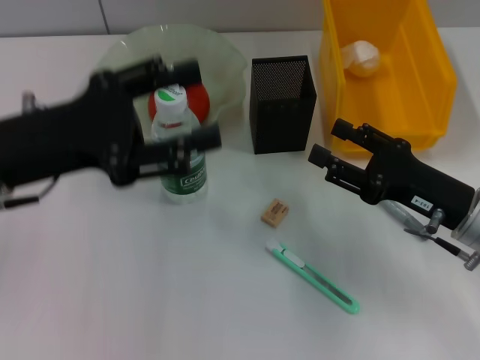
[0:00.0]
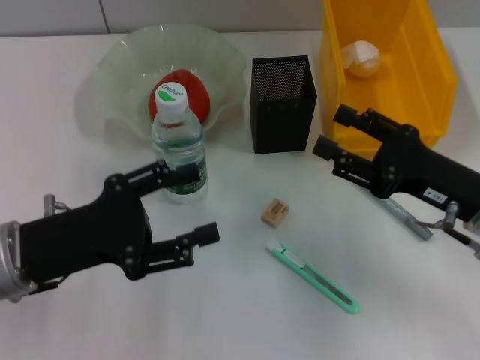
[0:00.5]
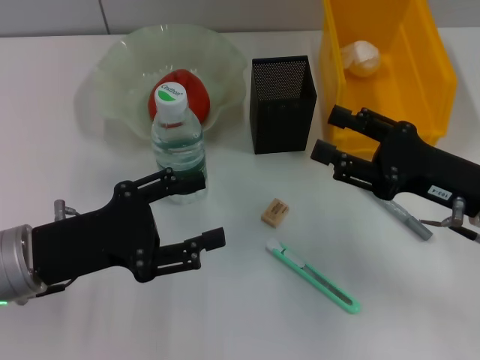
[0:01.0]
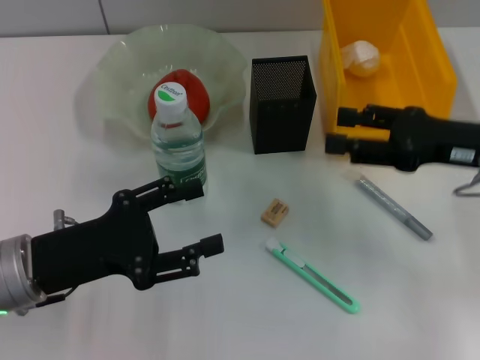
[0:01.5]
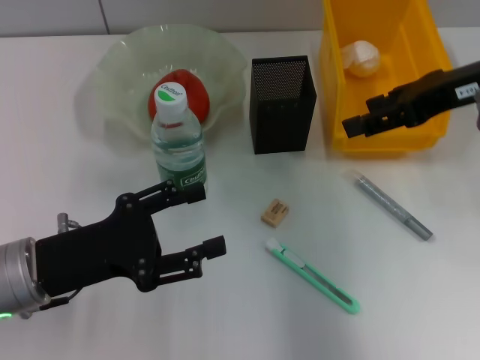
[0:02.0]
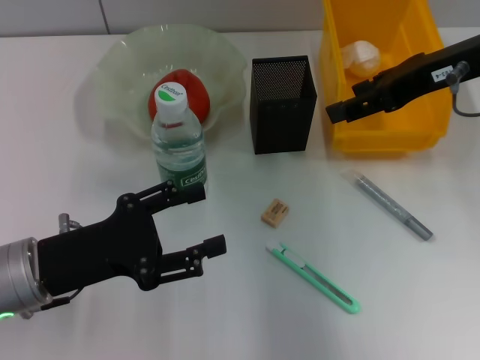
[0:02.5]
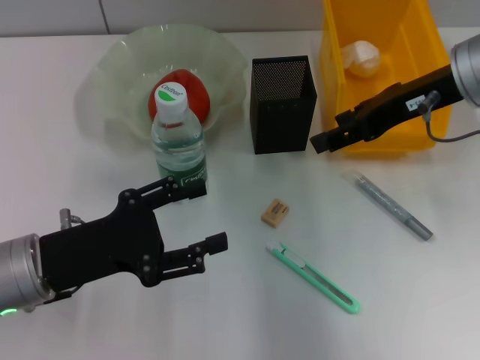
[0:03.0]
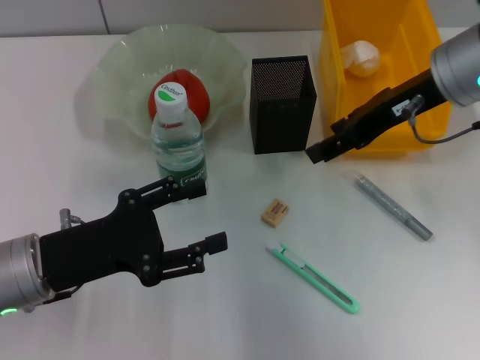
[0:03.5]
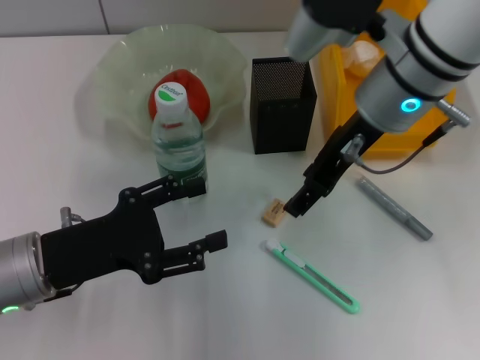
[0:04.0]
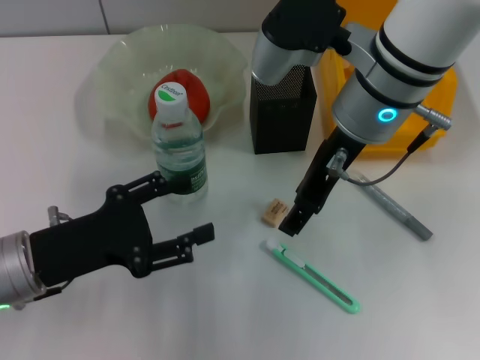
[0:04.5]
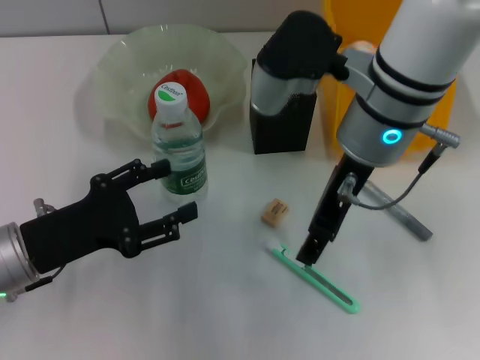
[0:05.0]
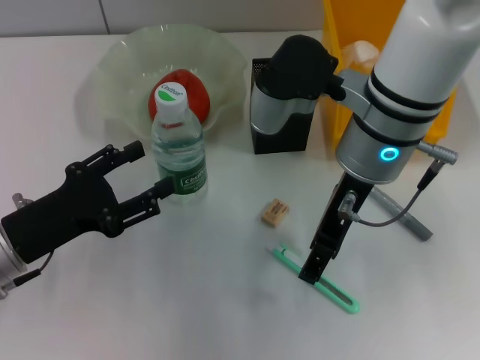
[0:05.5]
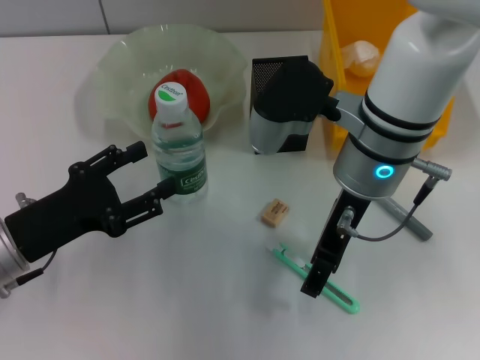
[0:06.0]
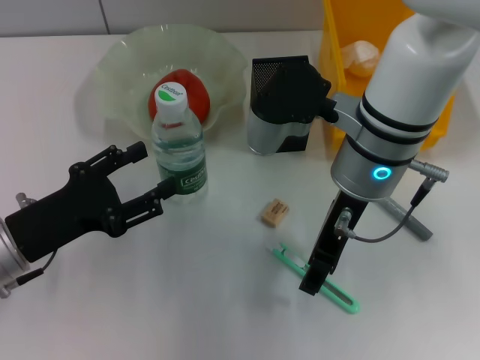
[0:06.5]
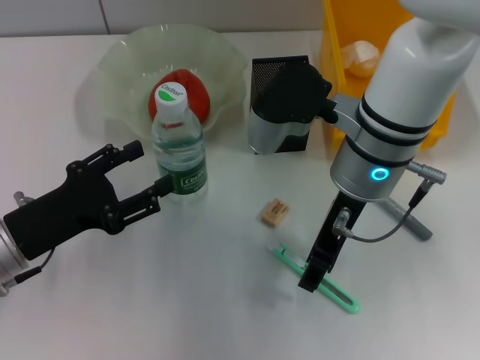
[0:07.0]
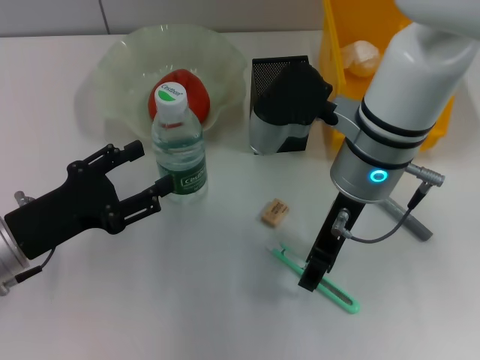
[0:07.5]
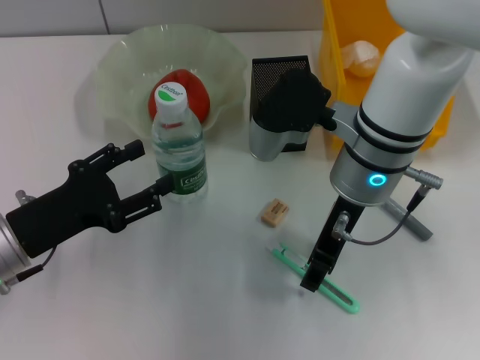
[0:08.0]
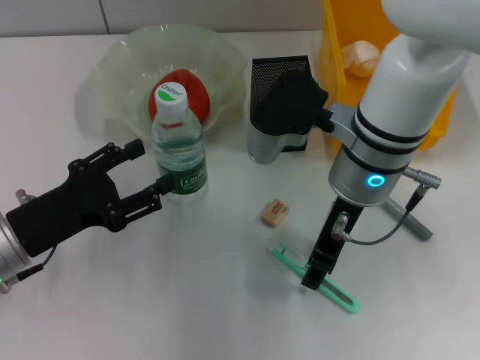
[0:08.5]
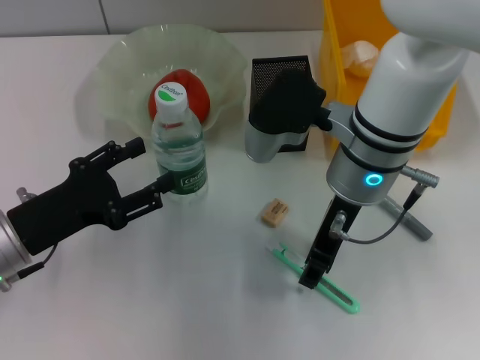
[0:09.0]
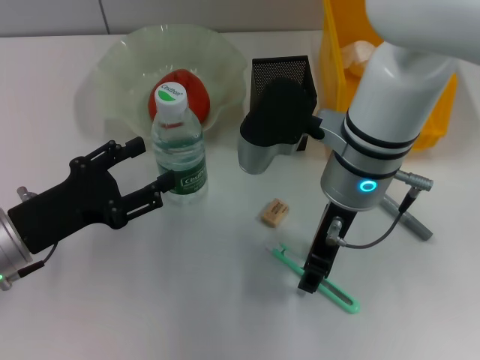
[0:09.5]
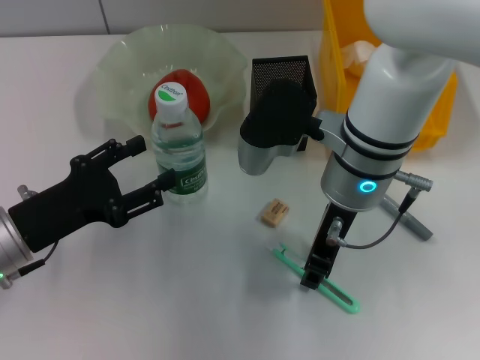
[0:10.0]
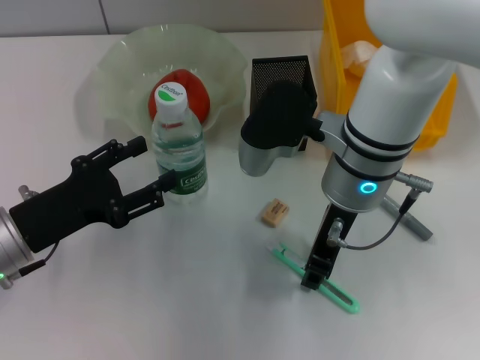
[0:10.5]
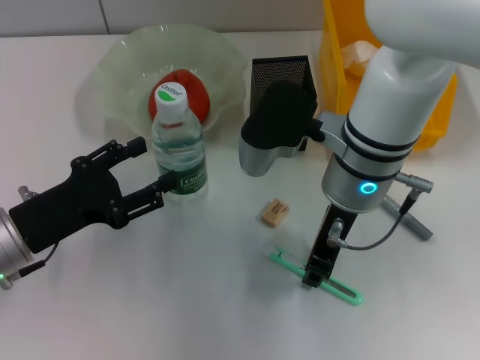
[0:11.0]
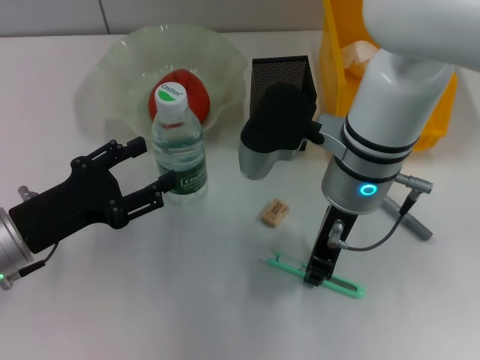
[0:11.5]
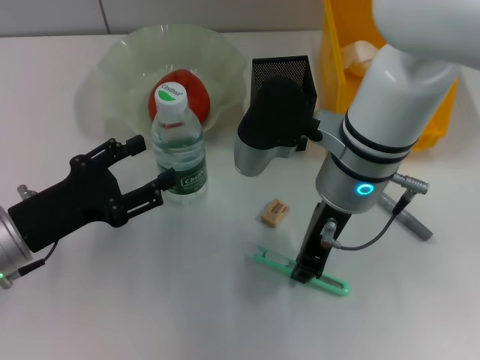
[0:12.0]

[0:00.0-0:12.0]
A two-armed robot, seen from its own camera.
Step, 0:00.0 to 0:11.5: Grab the blue utility knife with the right hand.
0:00.0 to 0:02.0: The left gripper is displaced downward by approximately 10 cm; the right gripper moves upward and forward, roughly 20 cm.
0:02.0 to 0:04.0: The right gripper shifts some 15 cm to the left.
0:04.0 to 0:06.0: The right gripper moves approximately 5 cm.
0:06.0 to 0:08.0: The grippers make only small movements.
0:08.0 to 0:10.0: The two grippers keep their place.
0:10.0 to 0:12.0: The two grippers keep their place.

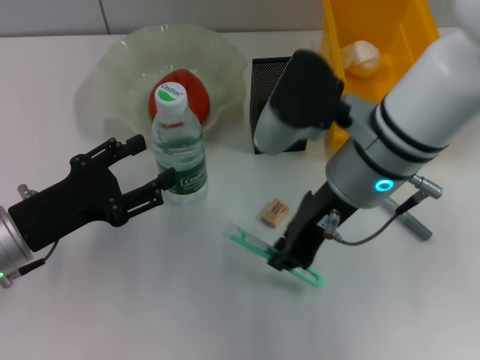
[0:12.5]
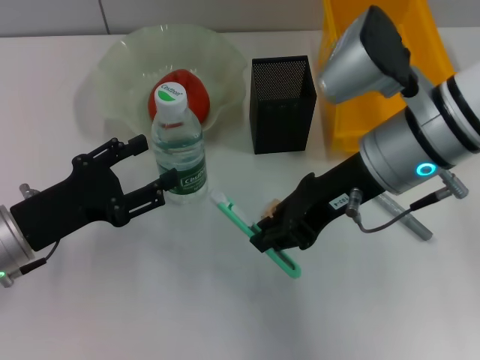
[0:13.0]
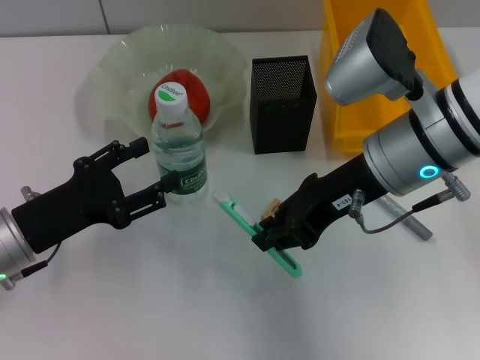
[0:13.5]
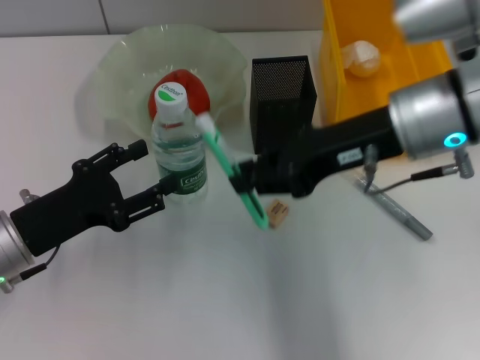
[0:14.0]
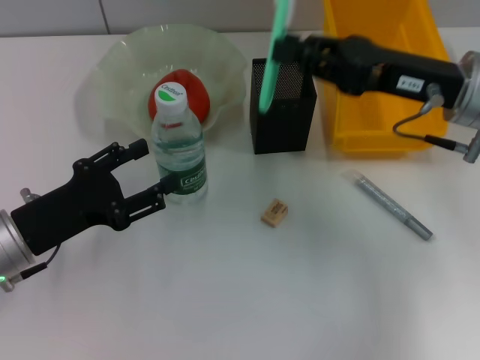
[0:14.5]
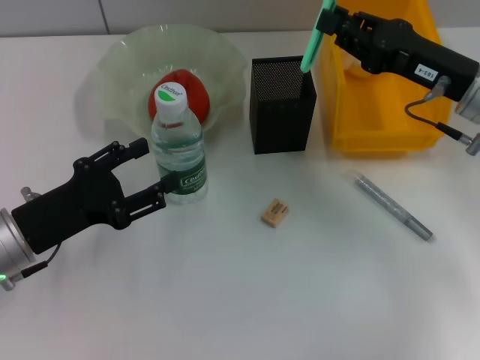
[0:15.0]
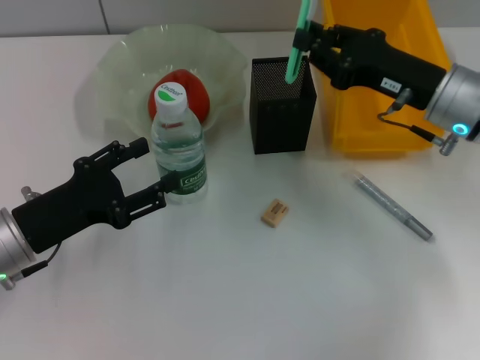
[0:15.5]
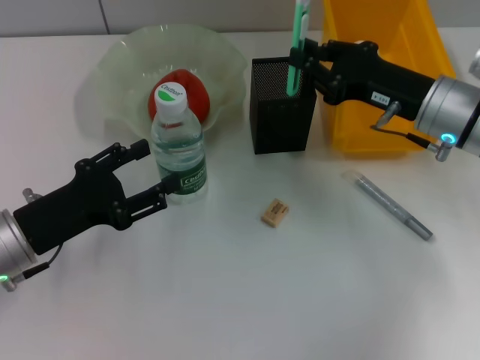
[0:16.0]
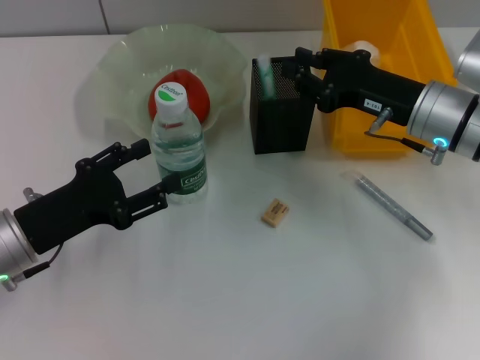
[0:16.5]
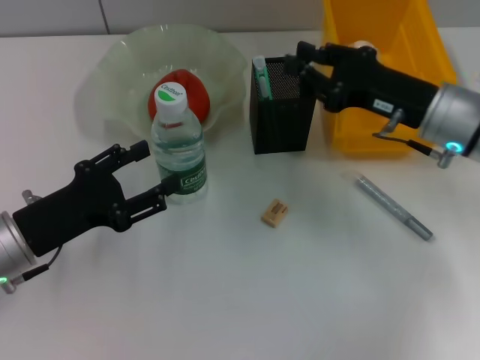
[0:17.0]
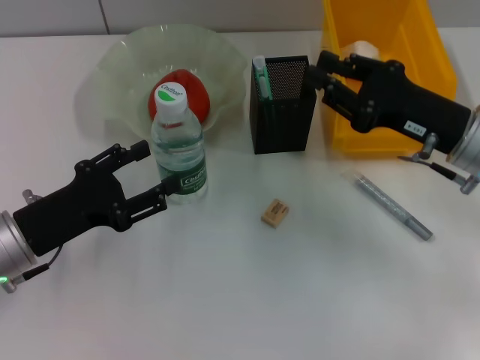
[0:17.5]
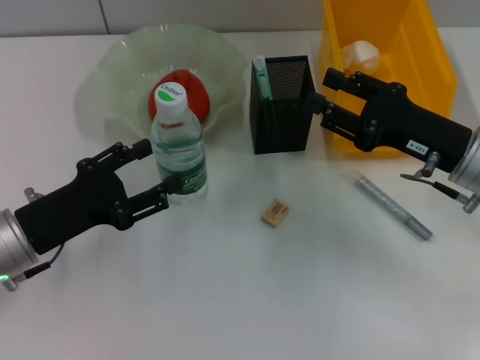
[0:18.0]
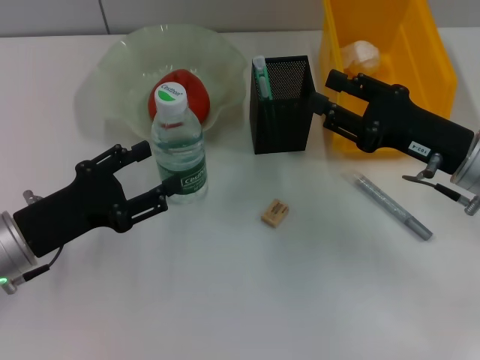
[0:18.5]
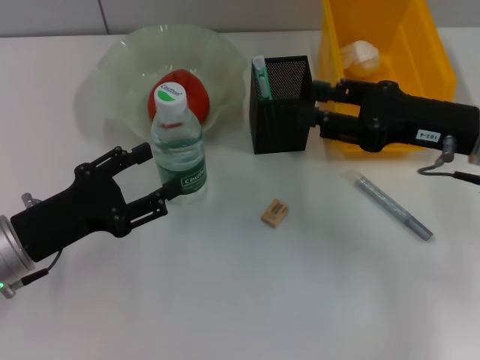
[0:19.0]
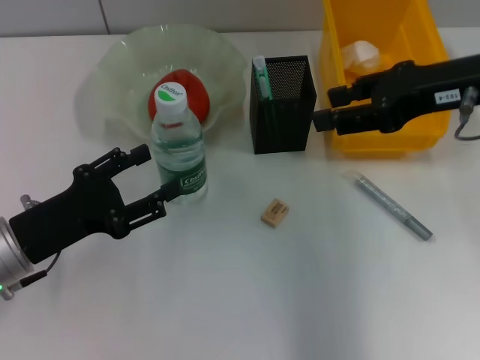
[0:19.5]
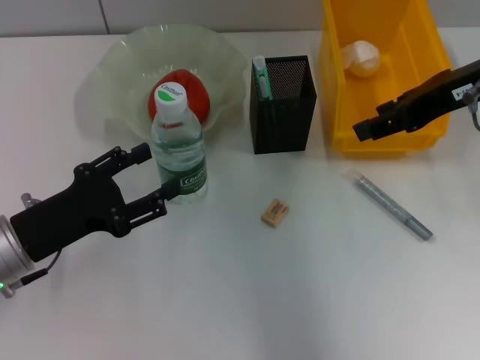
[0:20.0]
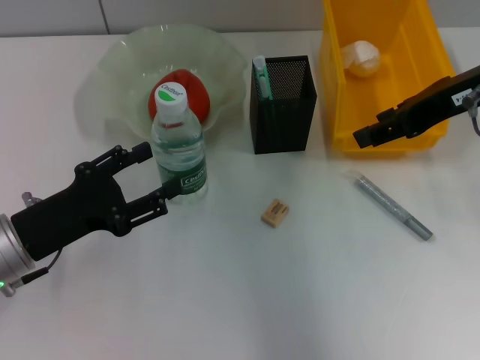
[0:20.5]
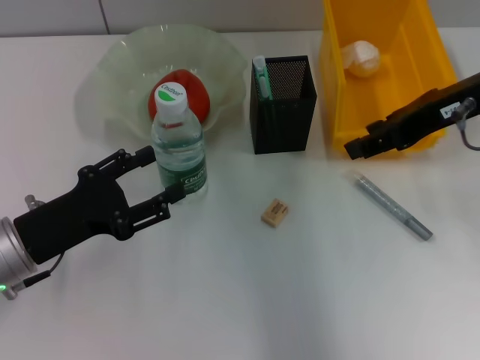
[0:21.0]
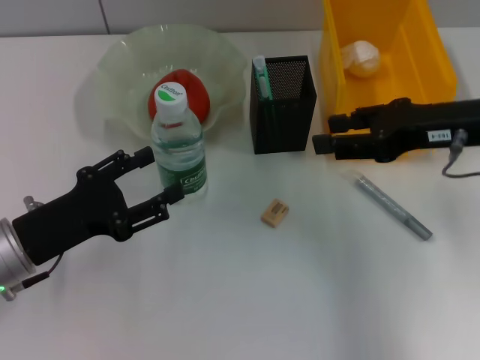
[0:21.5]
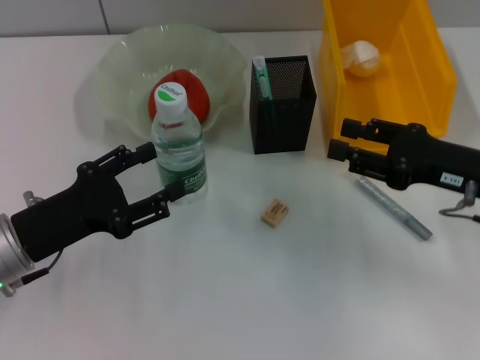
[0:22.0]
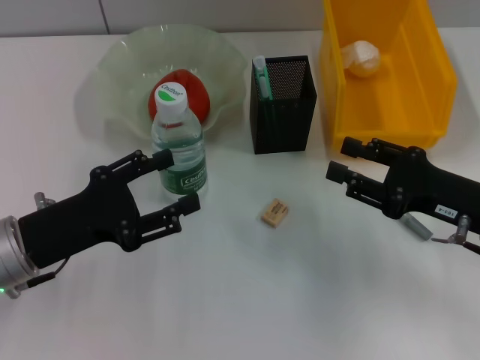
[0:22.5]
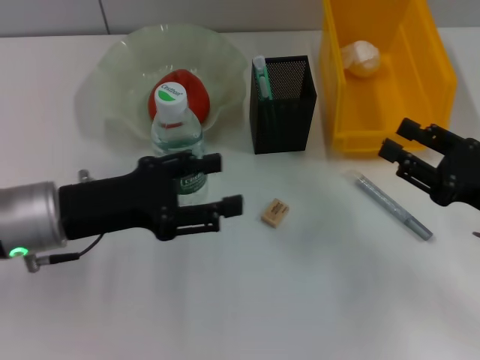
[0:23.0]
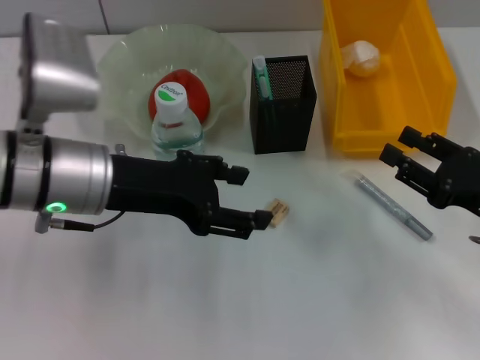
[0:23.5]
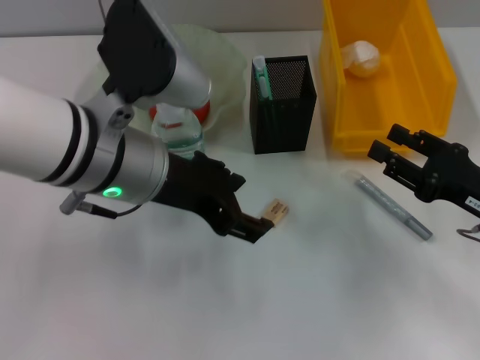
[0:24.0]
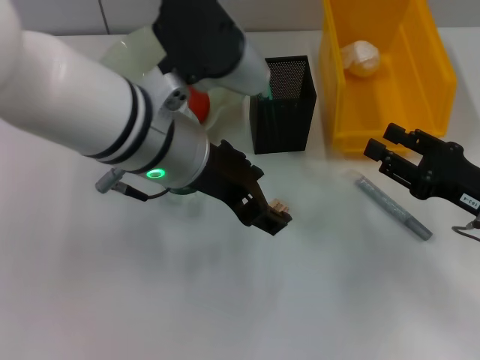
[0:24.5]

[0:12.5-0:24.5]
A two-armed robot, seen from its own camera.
Step, 0:12.5 to 0:16.5: Place the blue utility knife into the pen holder with the right hand.
0:12.5 to 0:14.5: The right gripper travels to the right by about 10 cm.
0:14.5 to 0:16.5: The right gripper shifts about 5 cm downward.
0:16.5 to 0:18.5: The right gripper heads backward, covering roughly 5 cm, and opens its fingers.
0:18.5 to 0:20.5: The right gripper goes about 15 cm upward.
0:20.5 to 0:22.5: The right gripper heads downward and backward, covering some 20 cm.
0:22.5 to 0:24.5: The left gripper travels to the right and upward by about 20 cm.

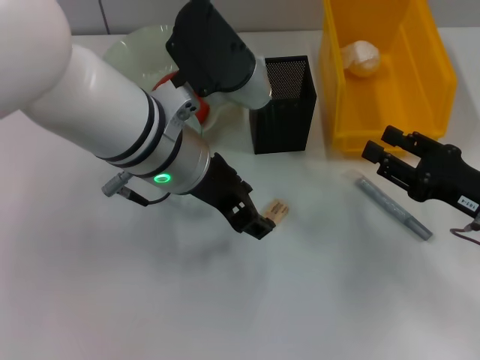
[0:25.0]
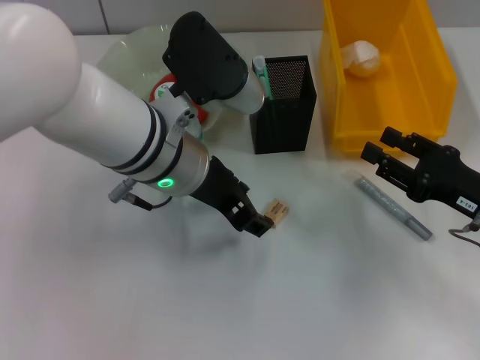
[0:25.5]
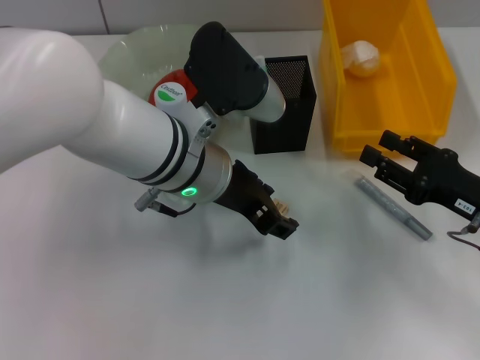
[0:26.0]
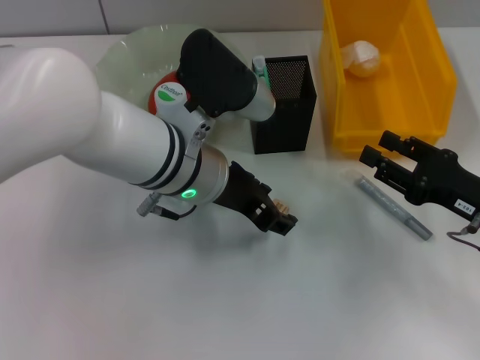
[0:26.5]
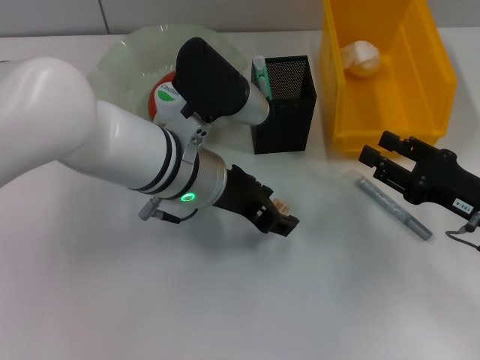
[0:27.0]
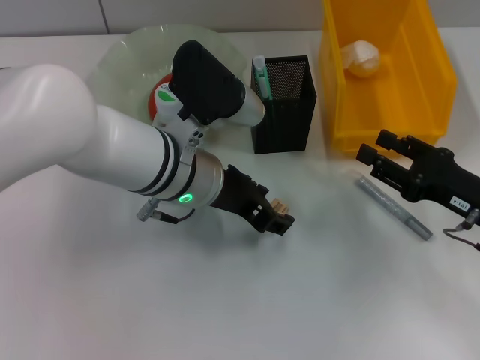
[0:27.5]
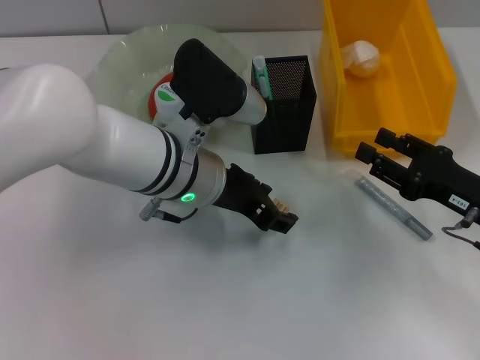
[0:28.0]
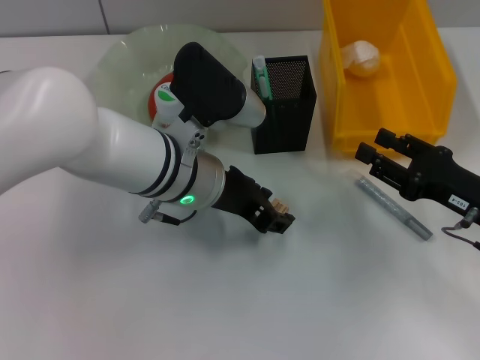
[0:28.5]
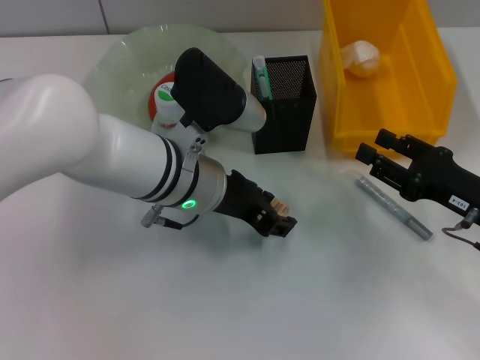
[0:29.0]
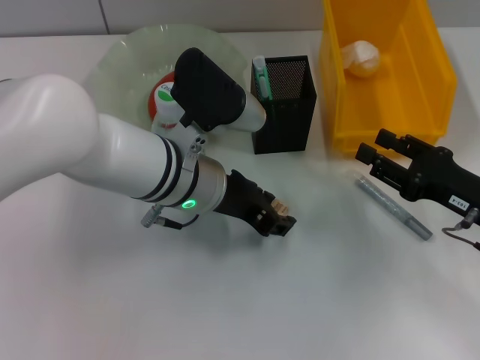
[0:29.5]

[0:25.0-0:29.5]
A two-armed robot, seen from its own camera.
0:25.0 to 0:27.0: The left gripper is displaced downward by roughly 5 cm.
0:27.0 to 0:29.5: Both grippers stay put.
